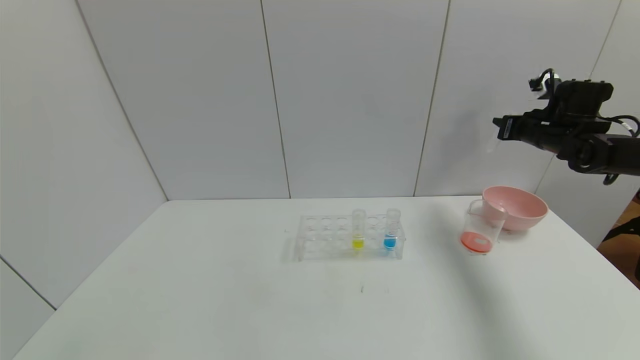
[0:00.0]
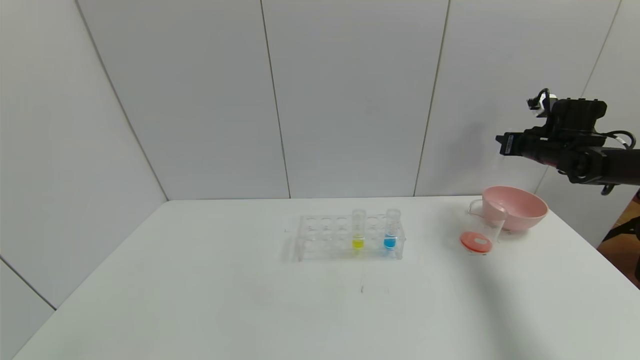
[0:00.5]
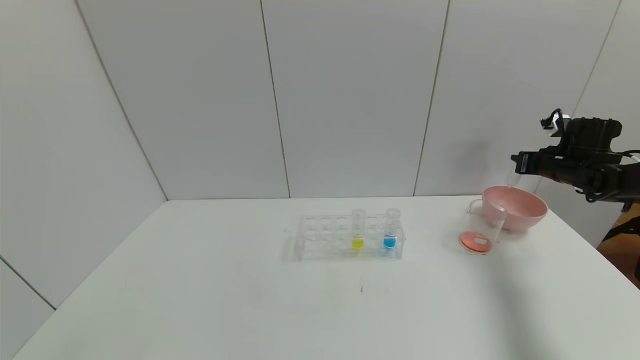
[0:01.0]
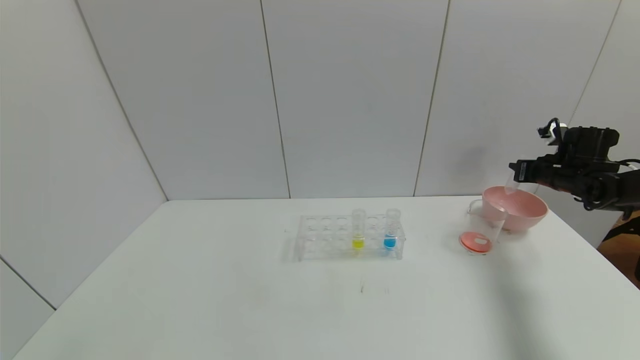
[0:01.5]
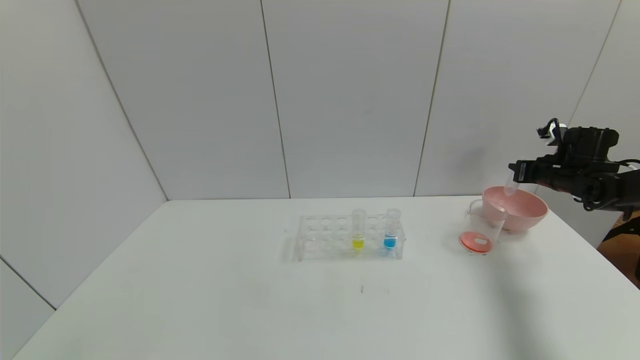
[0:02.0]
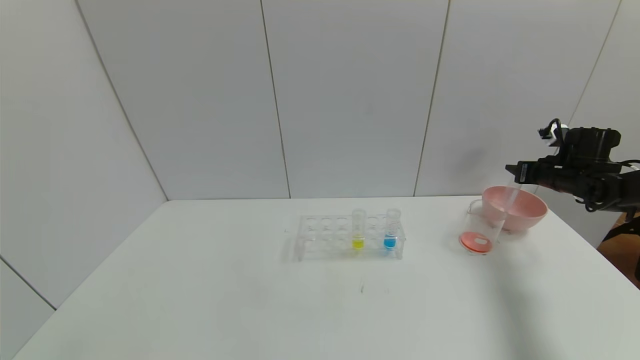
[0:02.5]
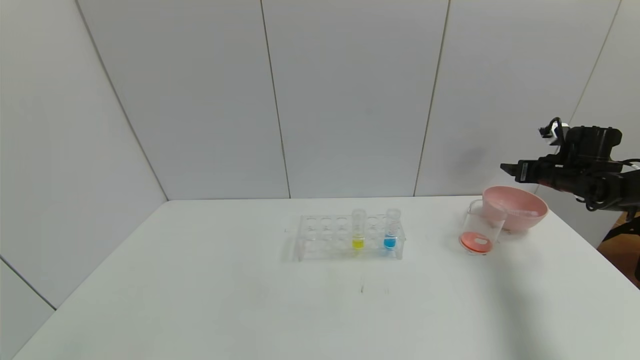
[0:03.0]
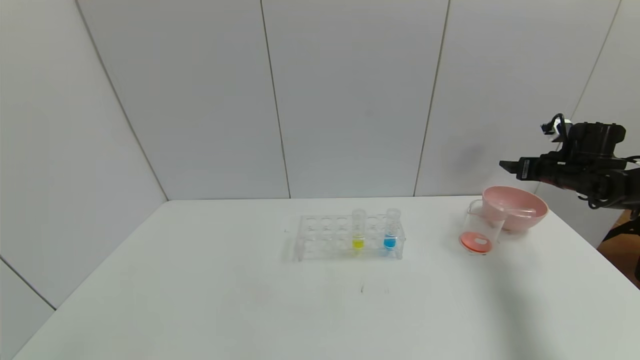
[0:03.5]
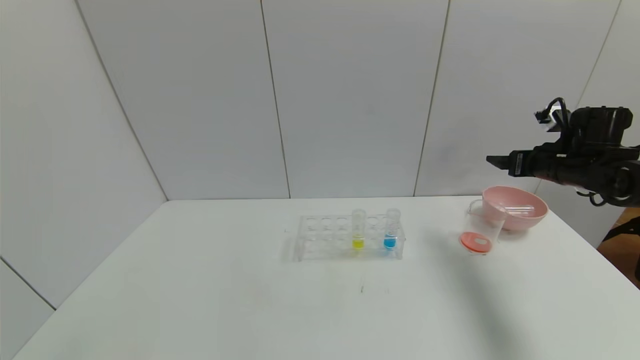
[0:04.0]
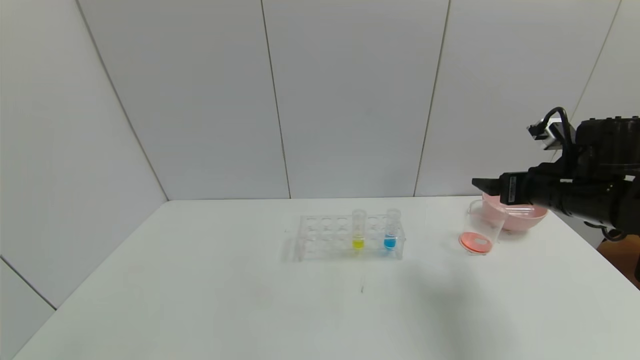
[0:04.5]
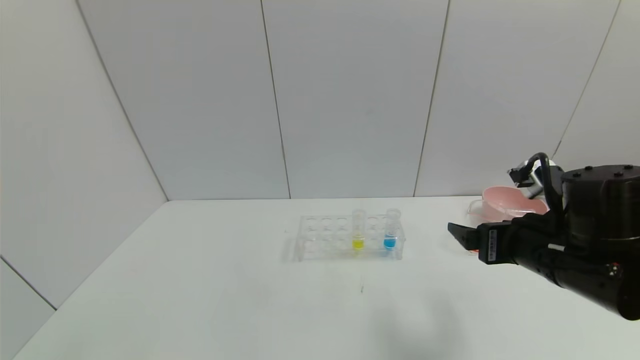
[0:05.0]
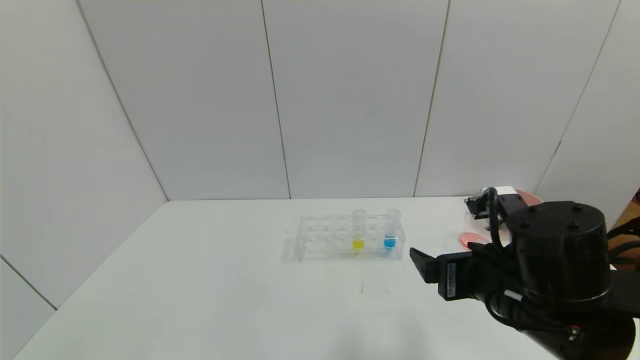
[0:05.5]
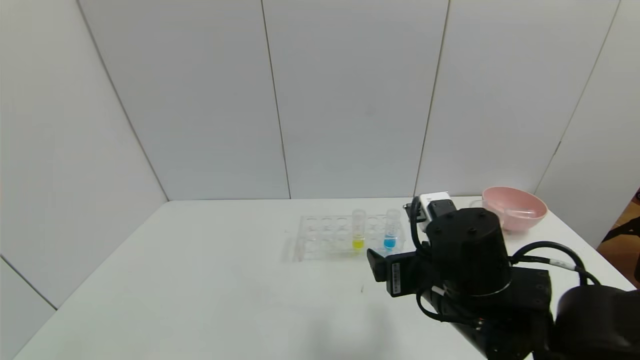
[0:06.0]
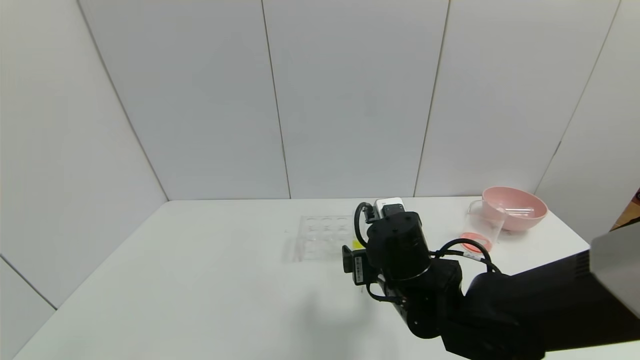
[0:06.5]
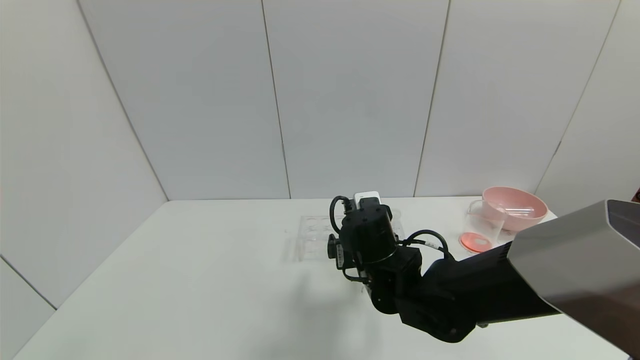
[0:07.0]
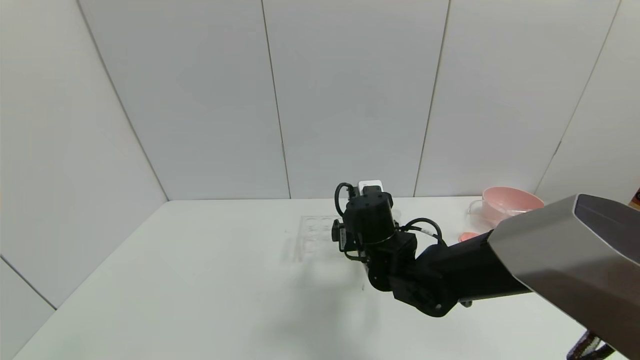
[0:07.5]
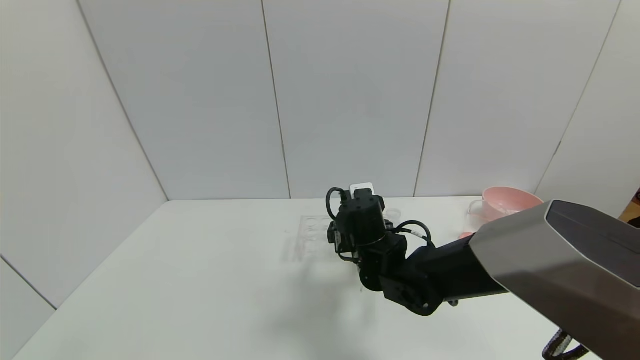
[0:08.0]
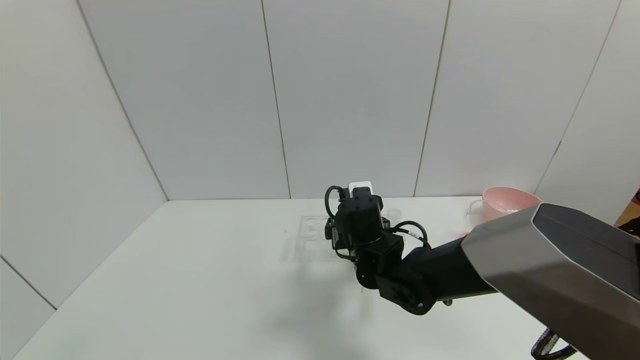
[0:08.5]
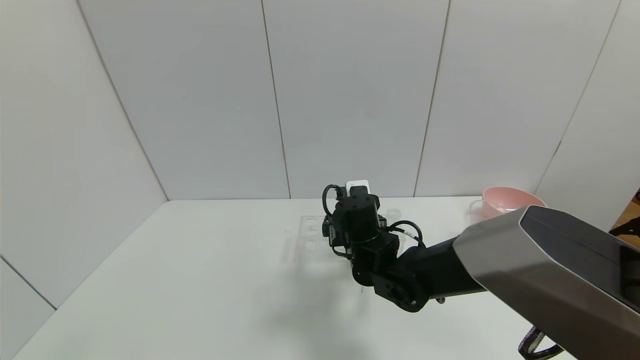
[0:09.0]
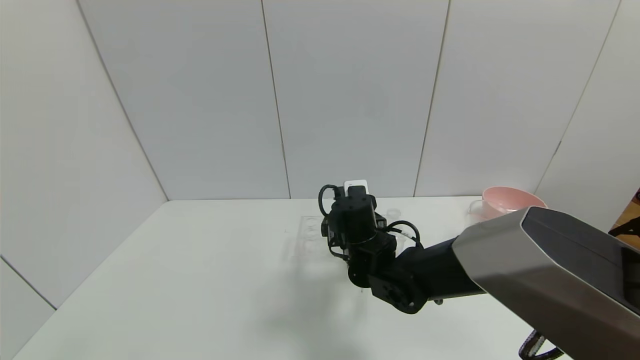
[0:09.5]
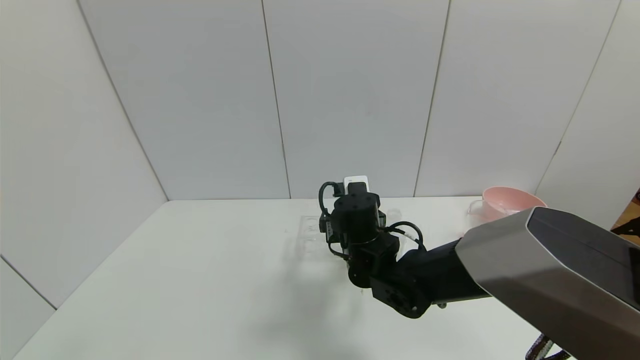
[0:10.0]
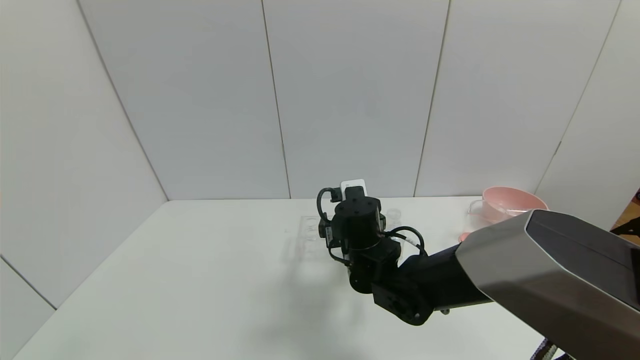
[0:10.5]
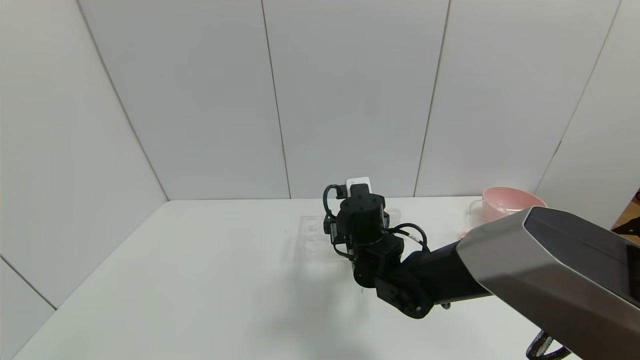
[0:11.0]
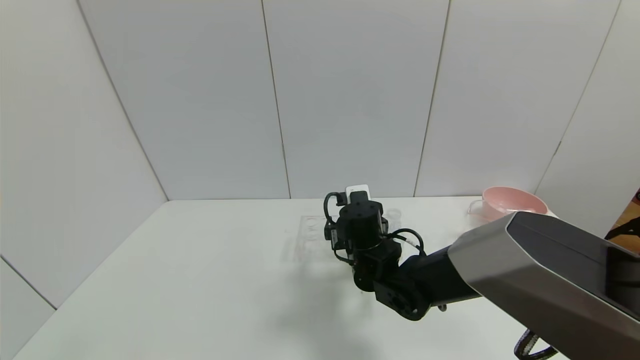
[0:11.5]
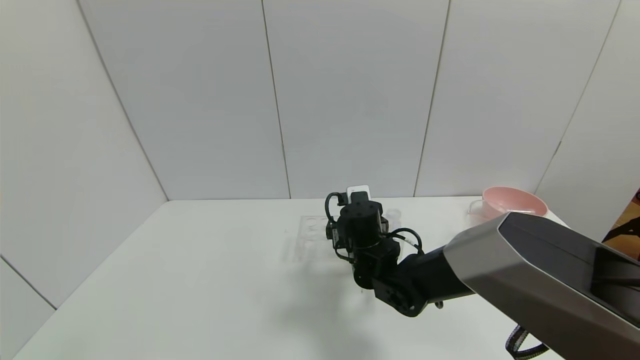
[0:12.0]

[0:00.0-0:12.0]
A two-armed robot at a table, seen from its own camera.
Task of the whole recording: pick up the test tube with yellow pigment and the test tube with red pigment by grippers and pour them into the beaker.
Step, 0:00.0 to 0:02.5: Place the test tube into the bowl with the right gripper.
0:00.0 to 0:02.0: The right gripper moves downward, about 5 cm.
0:02.0 to 0:04.0: The right gripper heads to the left and backward, covering some 10 cm, and opens.
0:04.0 to 0:06.0: The right gripper goes about 30 cm to the left and backward.
0:06.0 to 0:08.0: The right gripper heads forward, to the left and downward, covering some 15 cm.
0:08.0 to 0:12.0: The grippers move only a little.

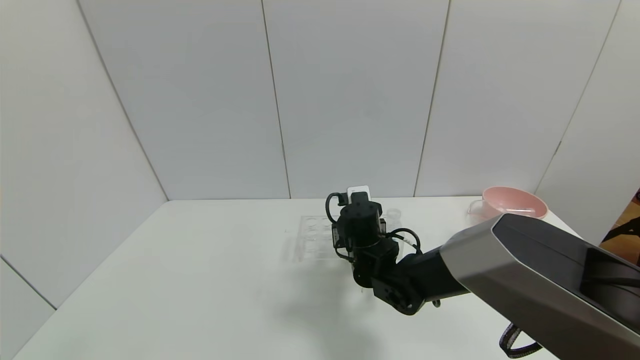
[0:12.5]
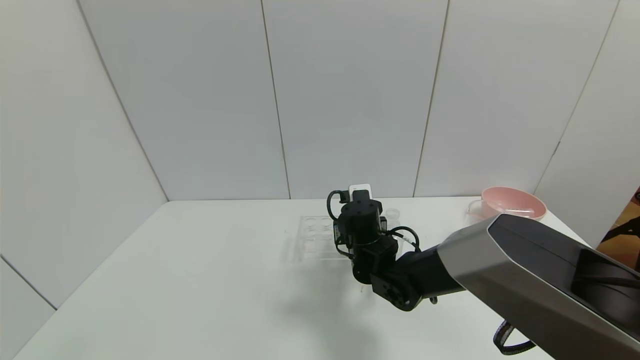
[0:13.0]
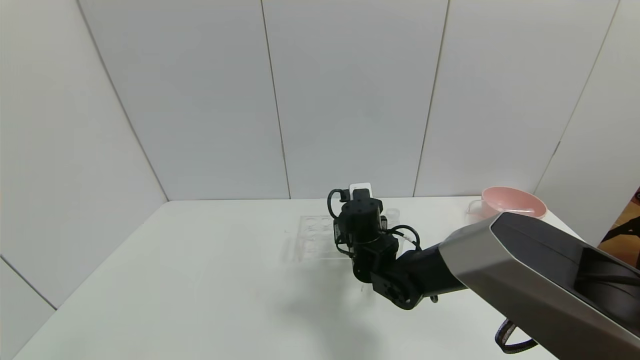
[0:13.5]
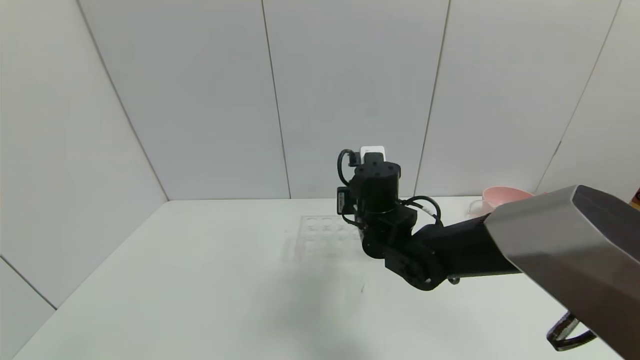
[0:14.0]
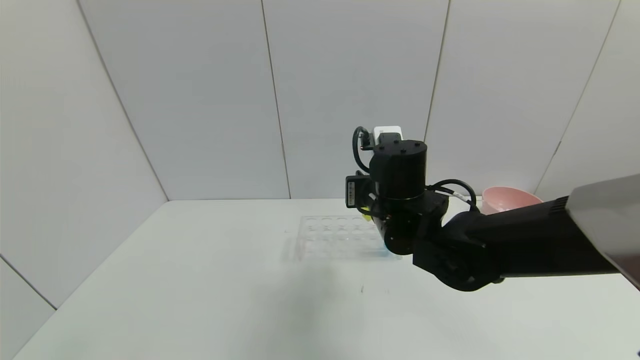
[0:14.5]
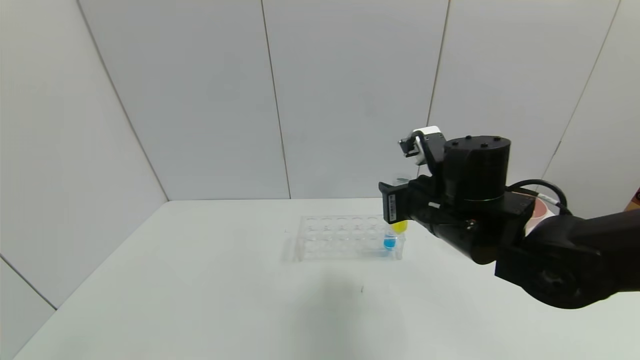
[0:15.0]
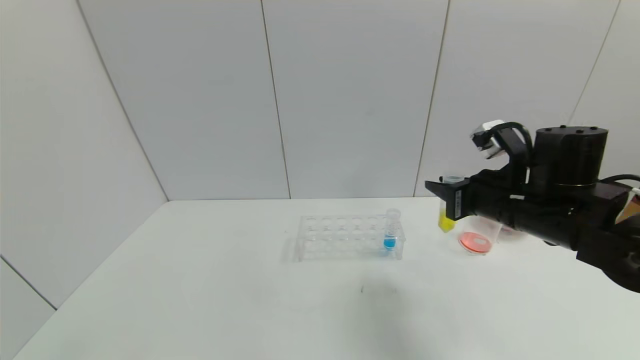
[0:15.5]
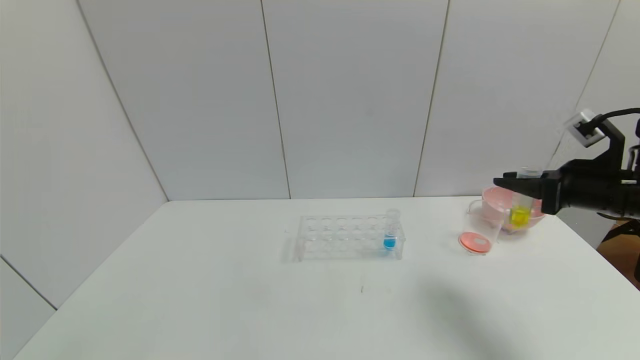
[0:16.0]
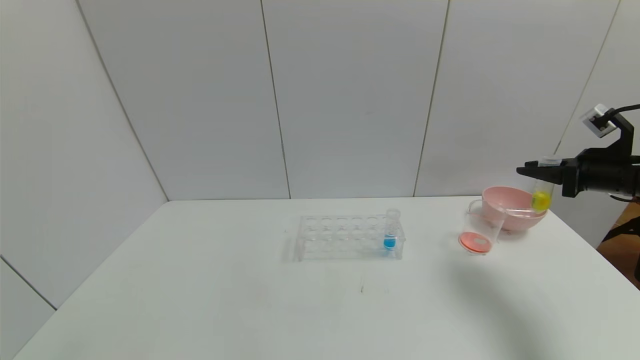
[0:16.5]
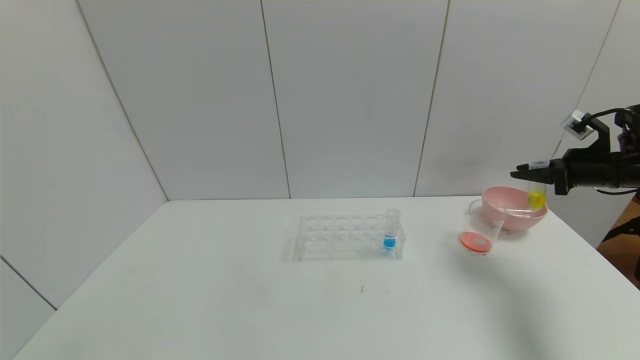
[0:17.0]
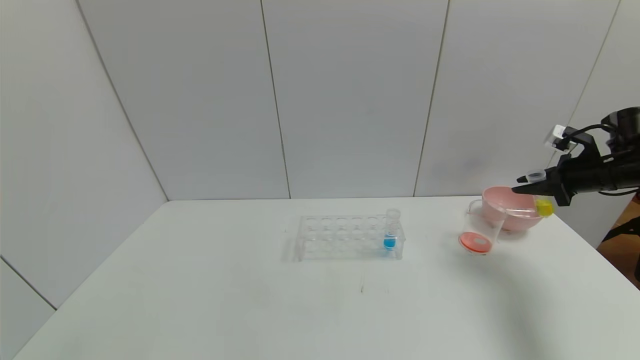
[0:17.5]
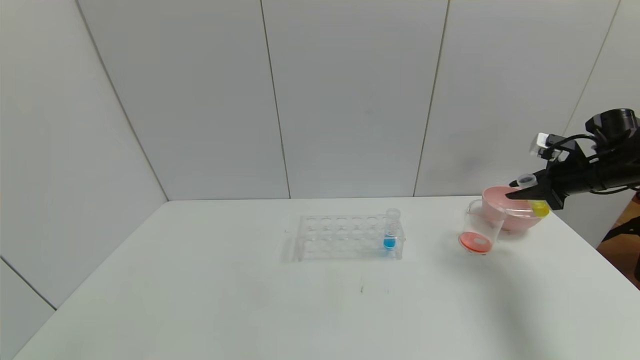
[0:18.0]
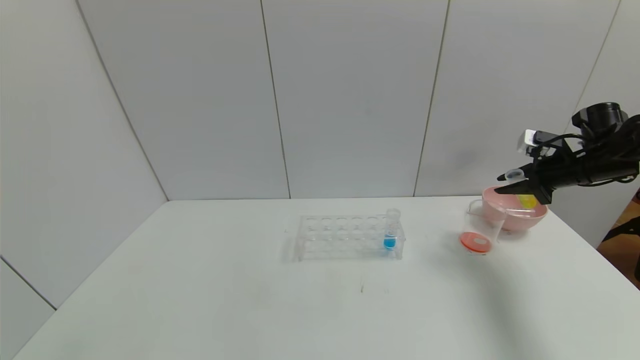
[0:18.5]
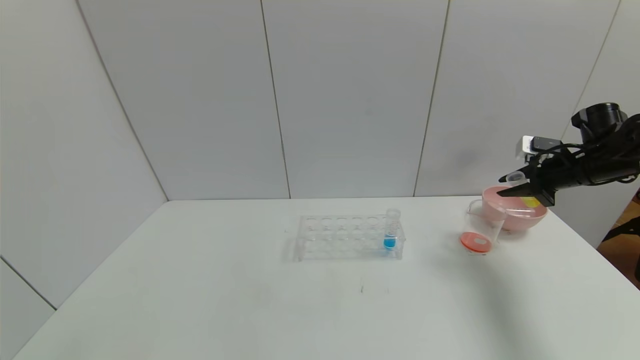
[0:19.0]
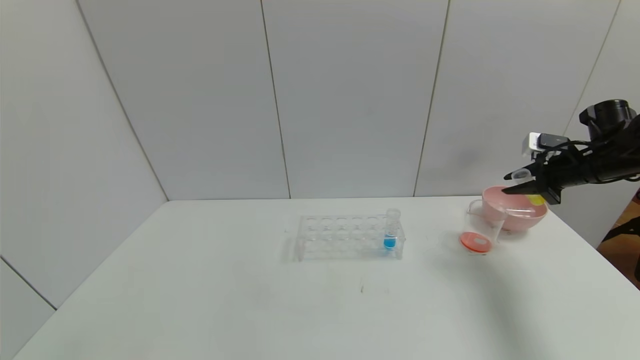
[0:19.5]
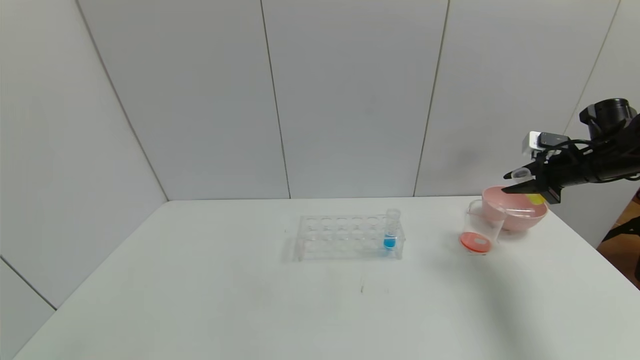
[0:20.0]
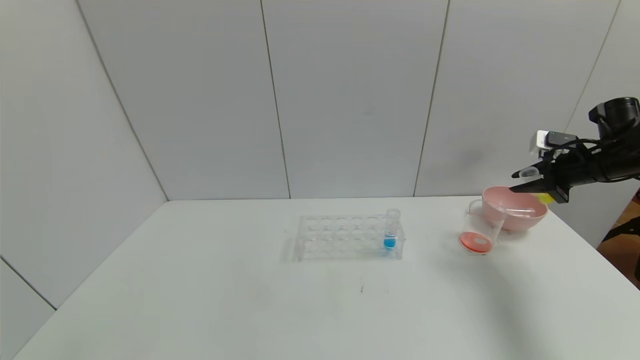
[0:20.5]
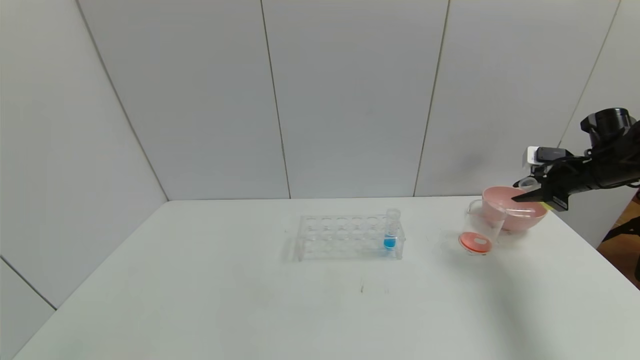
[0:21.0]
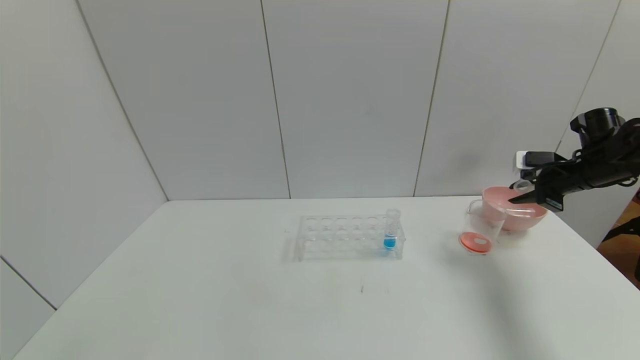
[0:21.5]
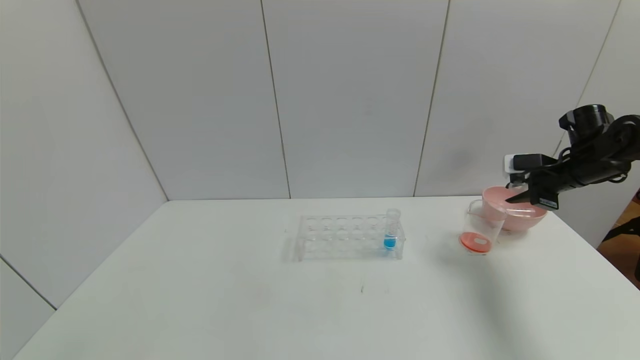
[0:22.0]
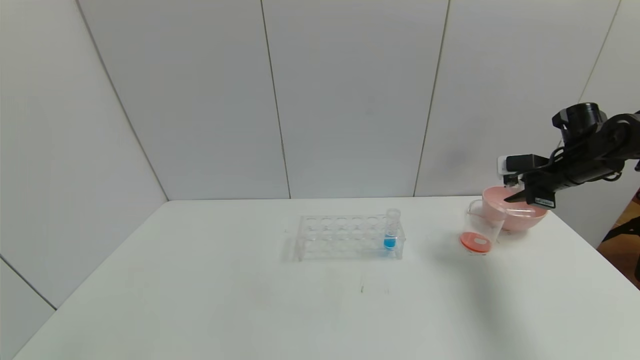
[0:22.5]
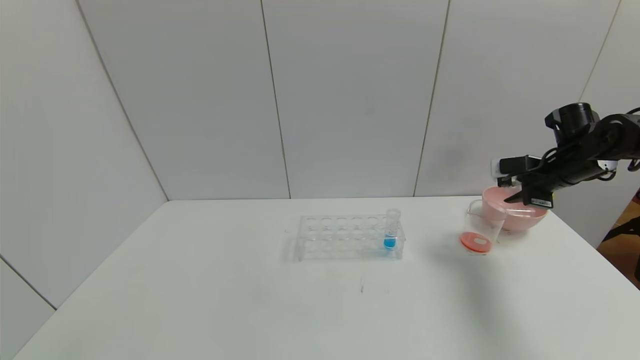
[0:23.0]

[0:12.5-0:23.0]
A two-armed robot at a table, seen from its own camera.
Task of the whole recording: pick up the test tube with yellow pigment and the test tube with red pigment by grippers and pour them into the beaker.
0:12.5 to 0:14.5: The right gripper heads upward, covering some 10 cm.
0:14.5 to 0:16.5: The right gripper moves to the right, some 35 cm.
0:16.5 to 0:19.0: The right gripper heads forward, covering approximately 5 cm.
0:19.0 to 0:21.0: The grippers move only a little.
0:21.0 to 0:23.0: The right gripper heads to the left, covering roughly 5 cm.
